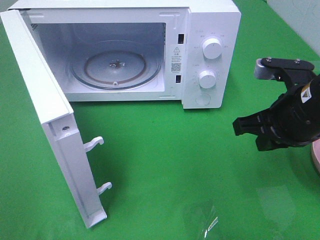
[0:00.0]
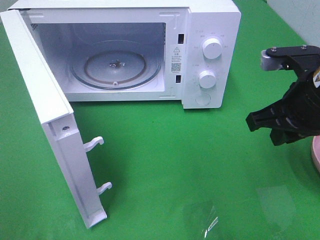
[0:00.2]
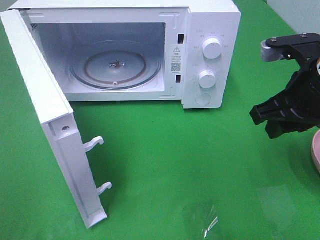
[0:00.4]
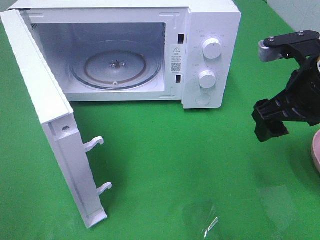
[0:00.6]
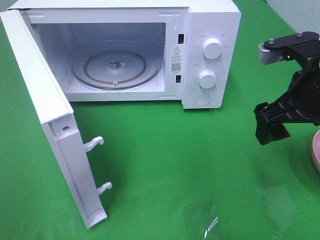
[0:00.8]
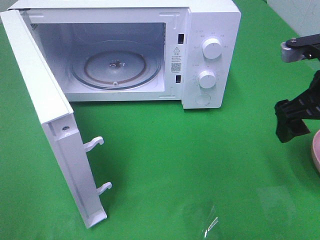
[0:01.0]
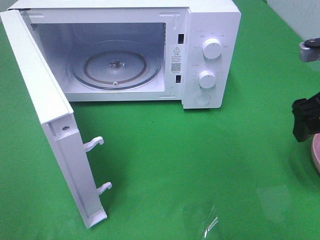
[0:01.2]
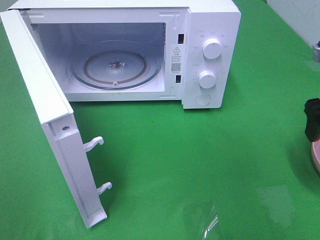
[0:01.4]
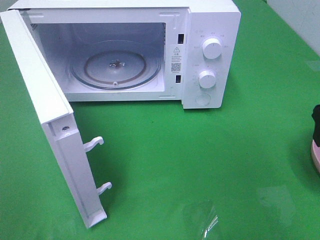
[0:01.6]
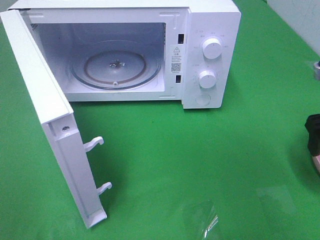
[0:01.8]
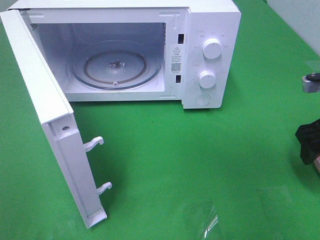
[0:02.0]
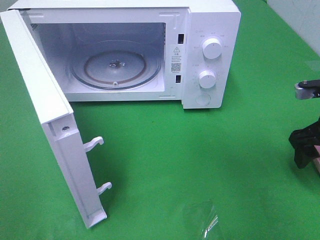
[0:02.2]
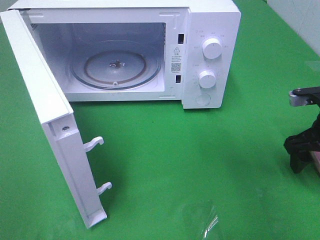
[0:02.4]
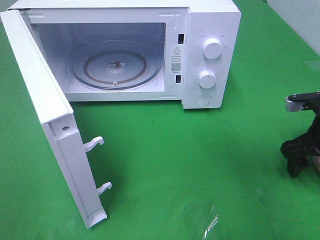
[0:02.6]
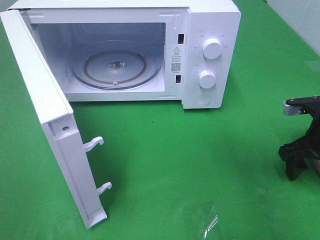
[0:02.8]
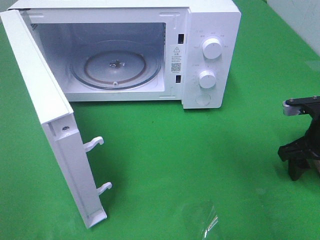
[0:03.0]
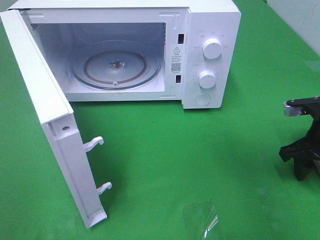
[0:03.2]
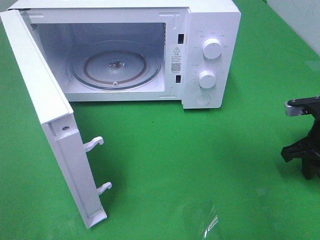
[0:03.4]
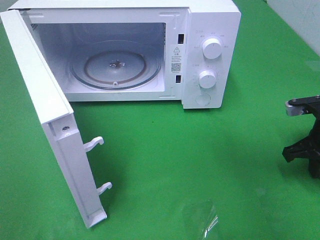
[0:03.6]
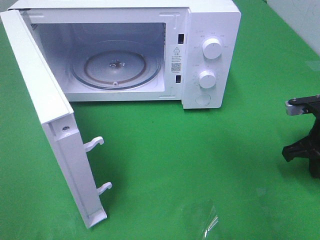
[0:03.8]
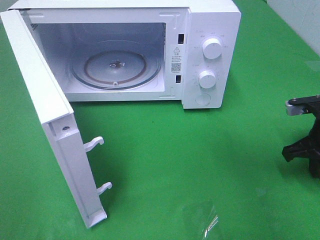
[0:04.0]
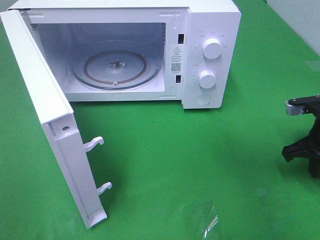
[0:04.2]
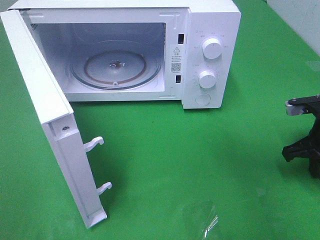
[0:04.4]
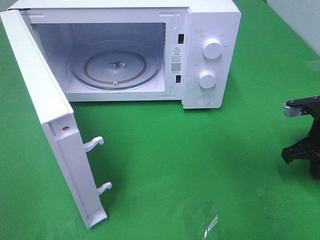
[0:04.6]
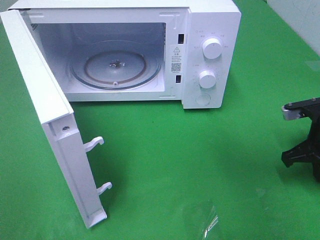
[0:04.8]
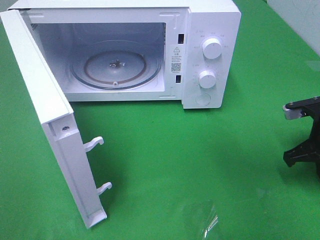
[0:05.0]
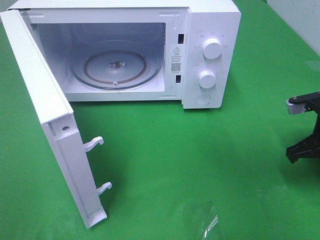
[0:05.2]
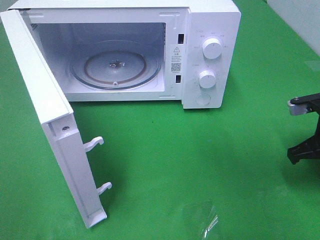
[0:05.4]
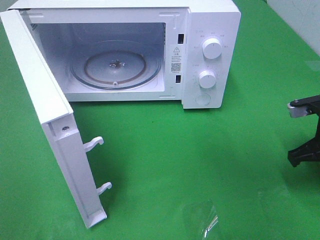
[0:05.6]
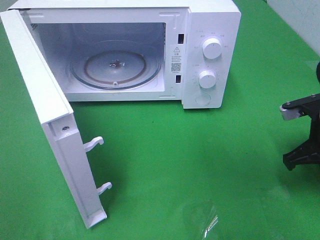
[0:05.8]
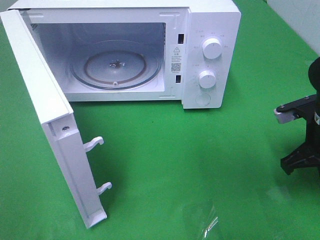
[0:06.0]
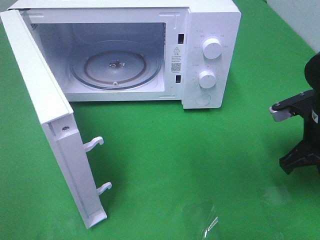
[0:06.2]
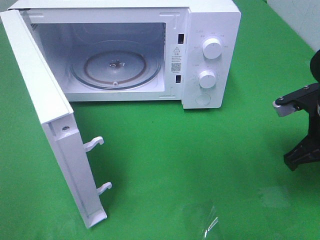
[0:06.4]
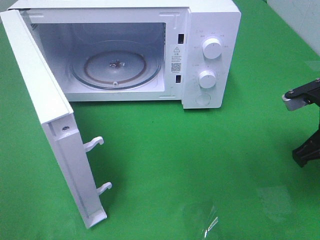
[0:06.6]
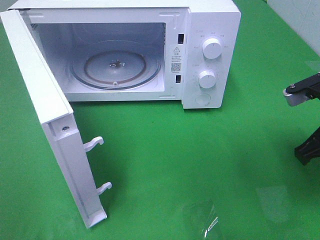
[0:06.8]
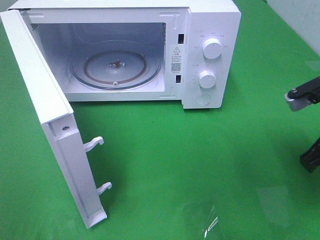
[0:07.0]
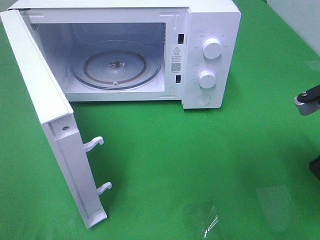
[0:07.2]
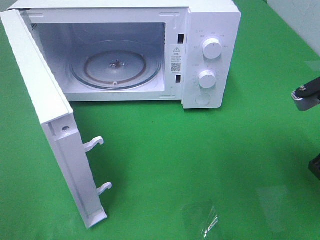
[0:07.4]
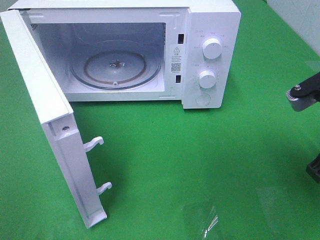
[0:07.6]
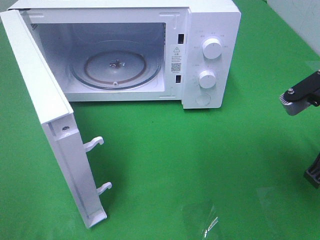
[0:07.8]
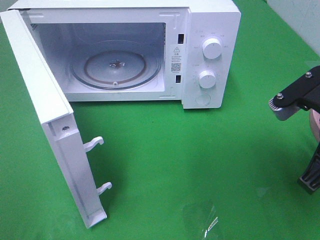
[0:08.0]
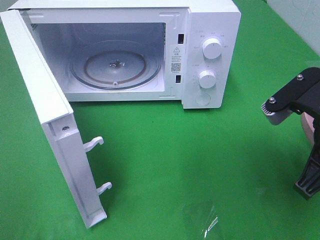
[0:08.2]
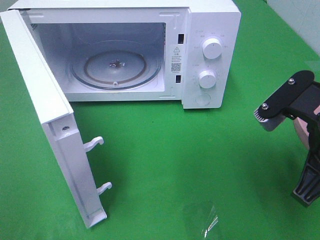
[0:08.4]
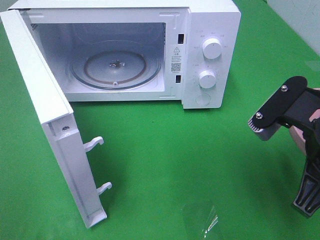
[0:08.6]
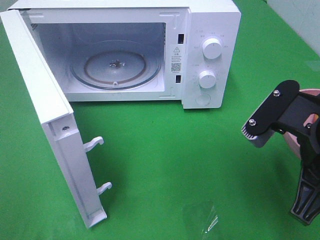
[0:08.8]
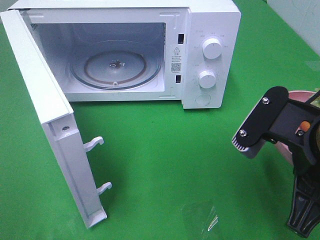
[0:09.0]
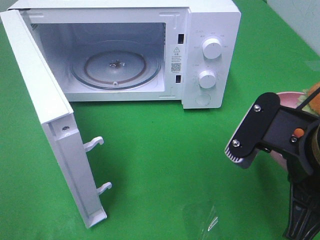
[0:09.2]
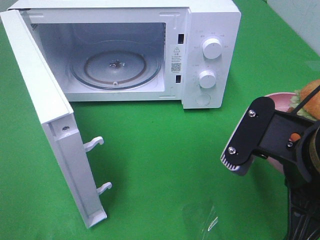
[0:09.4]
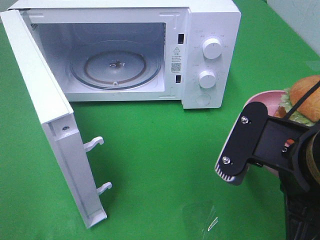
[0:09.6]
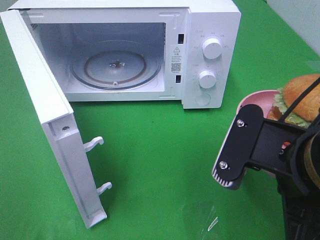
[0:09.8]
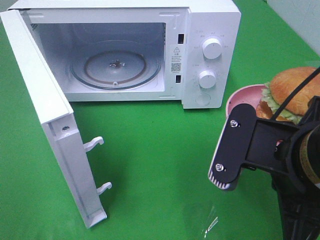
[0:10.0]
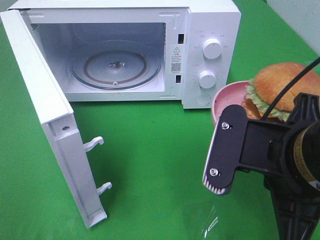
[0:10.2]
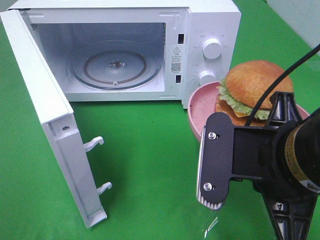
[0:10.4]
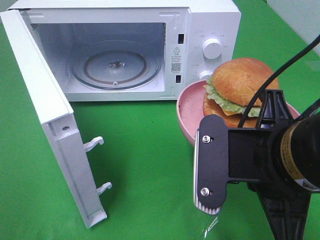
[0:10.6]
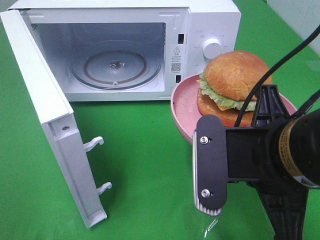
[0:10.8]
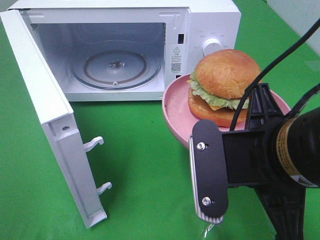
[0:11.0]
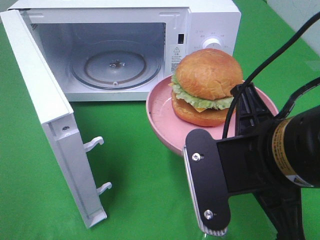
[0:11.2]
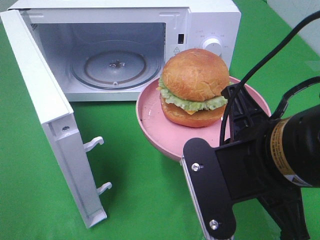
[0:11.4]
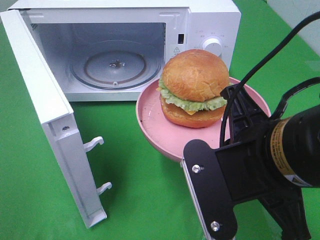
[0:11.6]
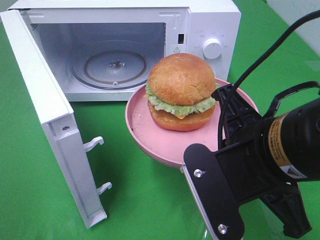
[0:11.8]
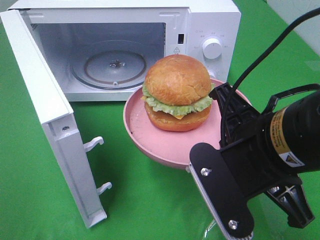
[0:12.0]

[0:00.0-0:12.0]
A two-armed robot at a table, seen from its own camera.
Task of the whole recording: Heat the burger.
Step, 0:00.0 to 0:05.0: Right hand: grab the plate with the hamburger.
0:00.0 to 0:01.6: The right gripper travels to the right by roughly 10 cm, and opens its fingers.
0:01.6 to 0:03.0: The right gripper is displaced downward by about 10 cm.
0:03.0 to 0:04.4: The right gripper closes its fingers.
0:04.4 to 0:06.0: The right gripper moves some 5 cm.
0:06.0 to 0:07.6: The right gripper travels upward and backward by roughly 10 cm.
0:07.6 to 0:09.0: The right gripper moves to the left and backward, approximately 10 cm.

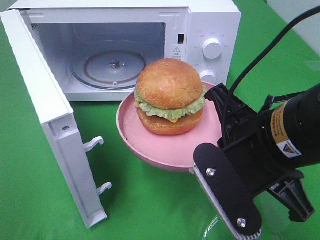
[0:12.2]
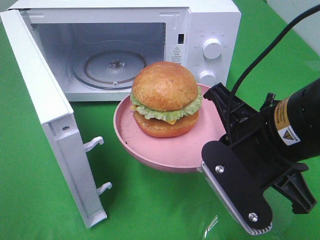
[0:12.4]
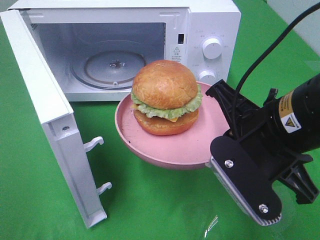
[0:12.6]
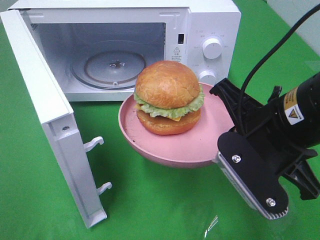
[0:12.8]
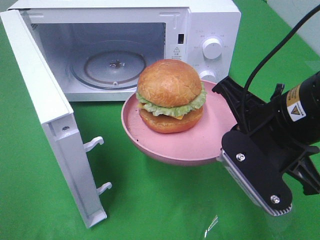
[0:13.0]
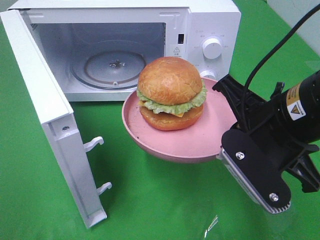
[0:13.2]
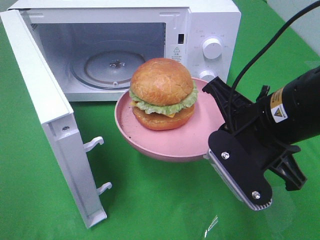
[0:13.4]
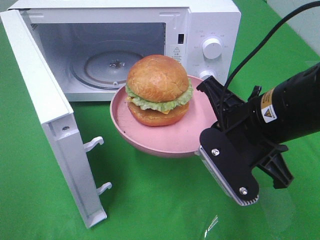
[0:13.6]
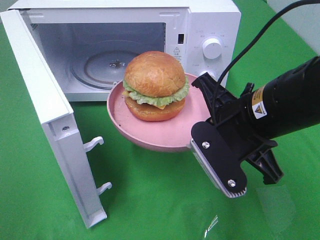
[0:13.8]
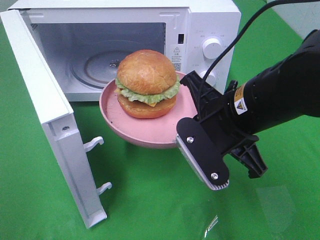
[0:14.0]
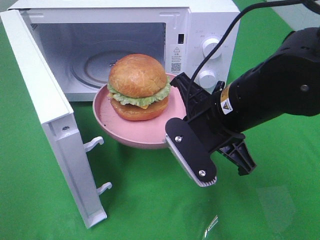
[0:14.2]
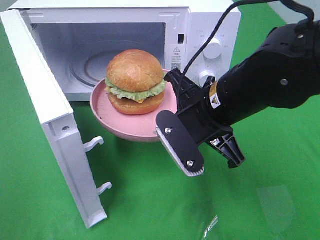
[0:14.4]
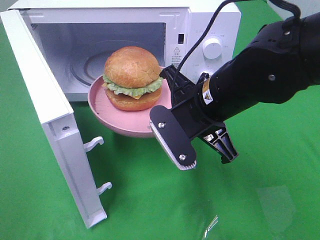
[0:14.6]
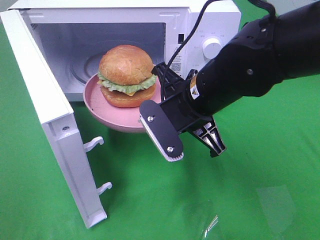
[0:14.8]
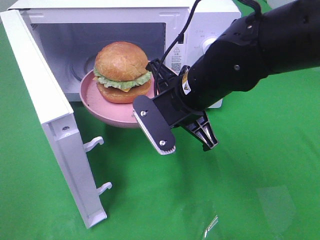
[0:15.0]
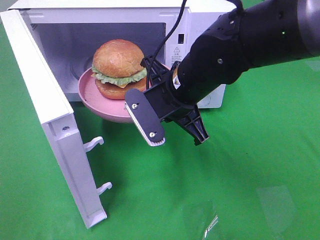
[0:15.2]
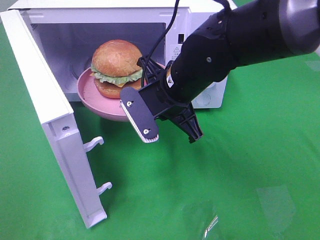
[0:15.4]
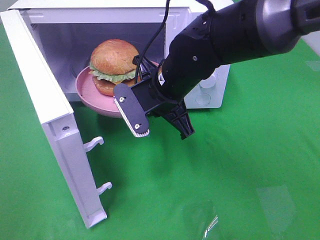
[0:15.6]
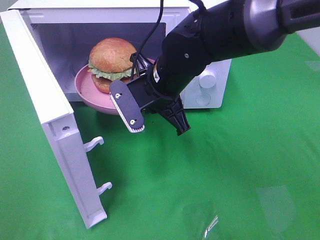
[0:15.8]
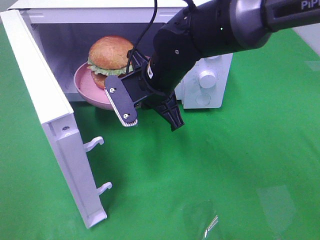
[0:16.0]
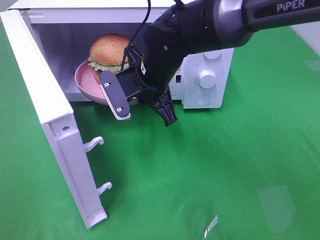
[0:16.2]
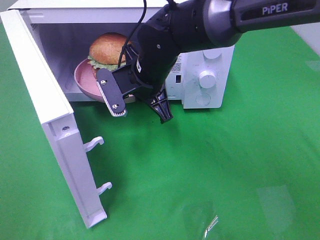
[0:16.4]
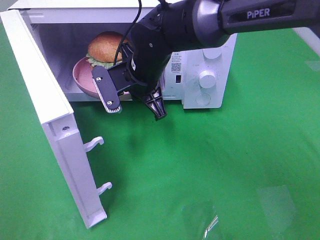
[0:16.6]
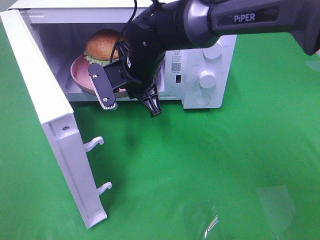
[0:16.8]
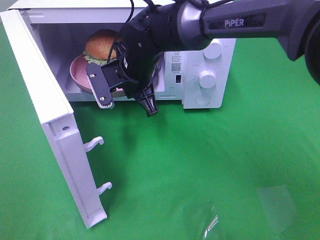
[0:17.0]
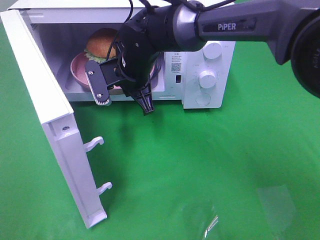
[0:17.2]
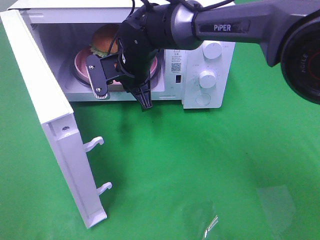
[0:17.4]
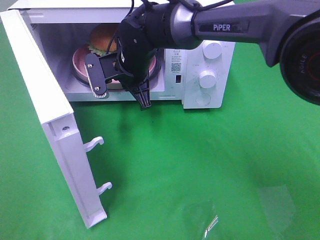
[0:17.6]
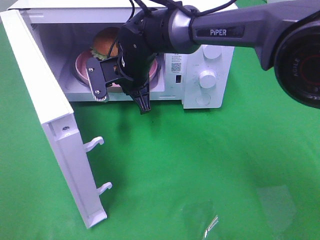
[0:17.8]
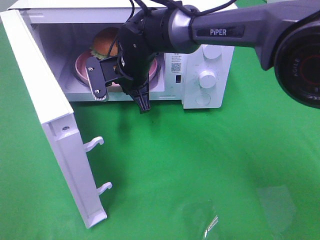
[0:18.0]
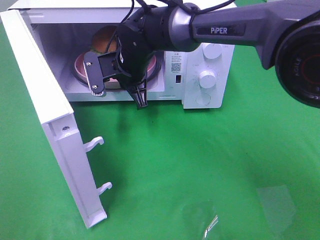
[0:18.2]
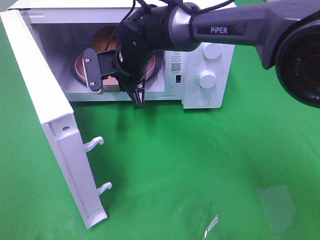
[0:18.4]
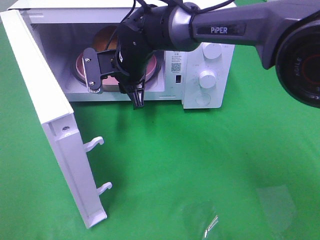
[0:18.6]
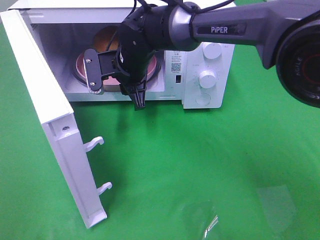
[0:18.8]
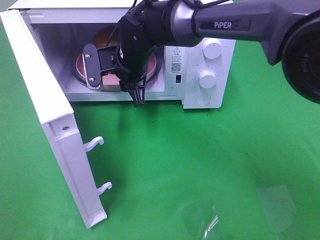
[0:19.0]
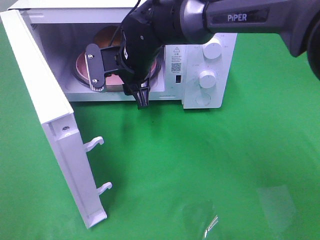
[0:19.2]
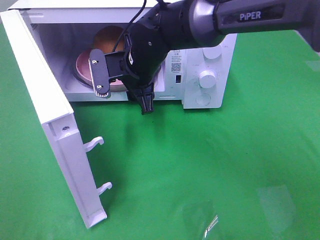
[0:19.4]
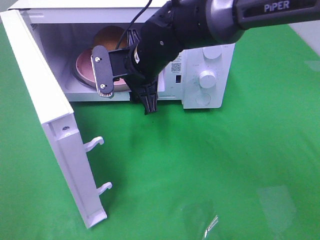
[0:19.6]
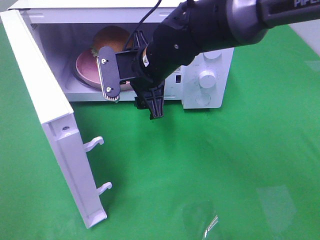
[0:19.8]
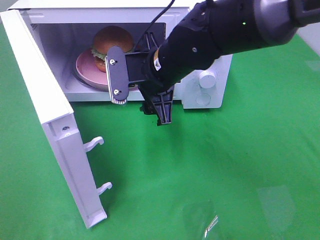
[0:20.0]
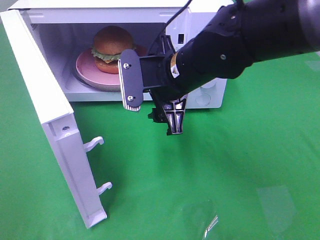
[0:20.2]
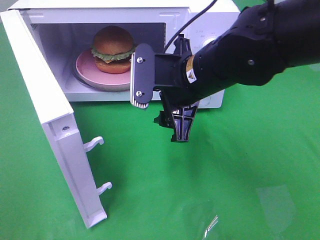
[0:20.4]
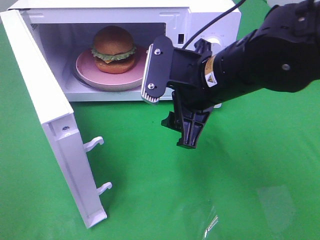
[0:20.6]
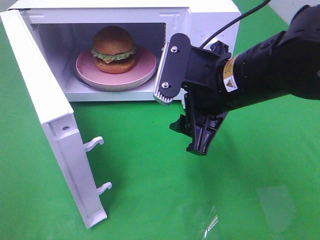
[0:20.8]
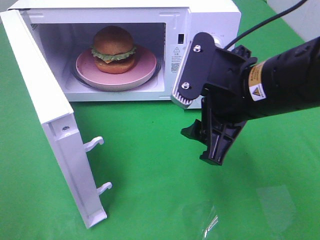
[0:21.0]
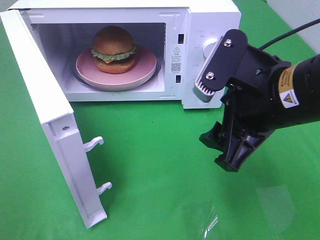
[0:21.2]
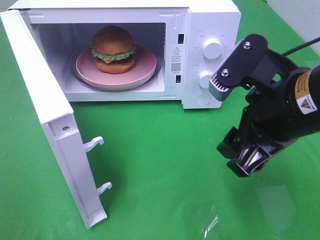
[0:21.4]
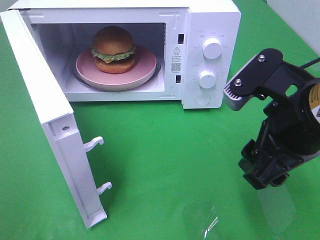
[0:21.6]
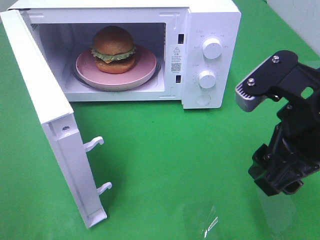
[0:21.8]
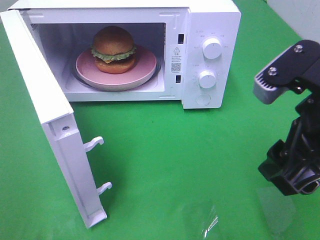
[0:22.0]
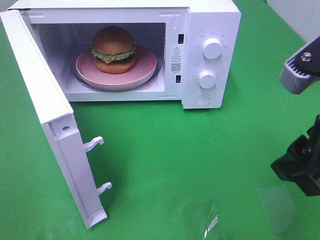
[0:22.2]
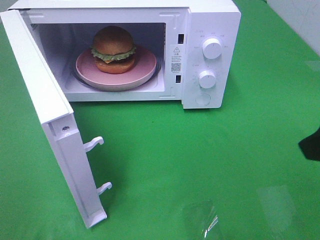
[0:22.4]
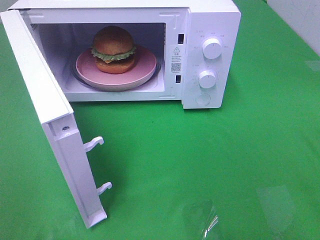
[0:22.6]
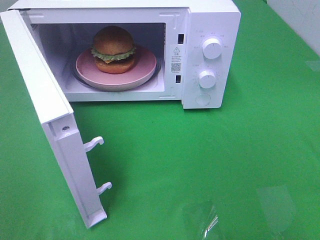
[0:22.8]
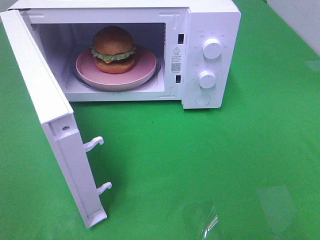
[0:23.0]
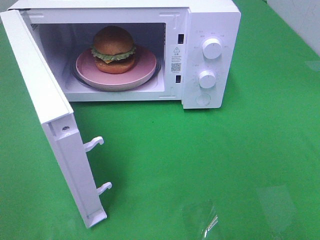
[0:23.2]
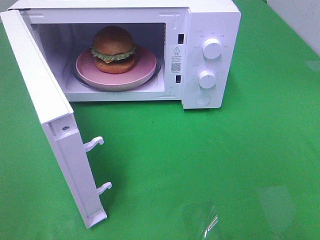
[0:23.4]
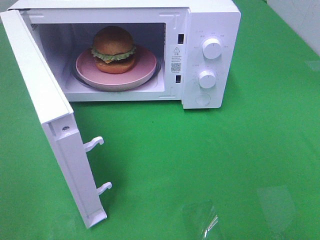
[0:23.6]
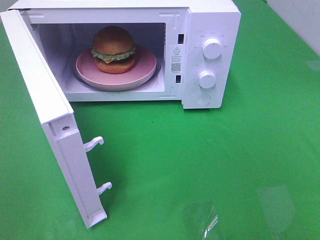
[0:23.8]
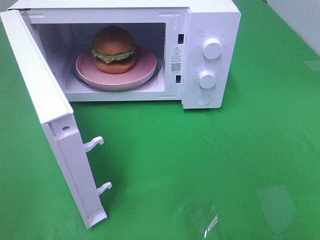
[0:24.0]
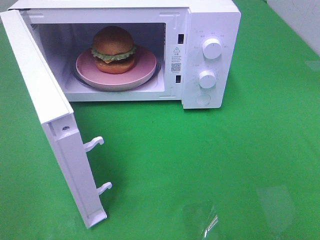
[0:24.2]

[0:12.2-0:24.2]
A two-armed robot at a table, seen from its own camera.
Task of the whole recording: Heat the burger.
Step, 0:12.2 to 0:19.4: Right hand: place the plate in the microwave.
0:12.2 to 0:13.8: The right gripper shifts about 5 cm forward.
0:13.8 to 0:15.2: The right gripper is displaced forward and to the left by about 10 cm.
0:15.2 to 0:16.6: The right gripper heads forward and to the left, covering roughly 10 cm.
0:16.6 to 0:18.2: The grippers stay close to where they were, moving slightly.
0:18.2 to 0:19.8: The right gripper travels backward by approximately 5 cm, and opens up.
0:19.8 to 0:21.2: The right gripper is displaced backward and to the right by roughly 20 cm.
0:21.2 to 0:22.6: The right gripper shifts roughly 15 cm to the right, backward and upward.
